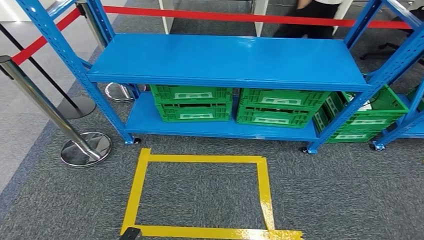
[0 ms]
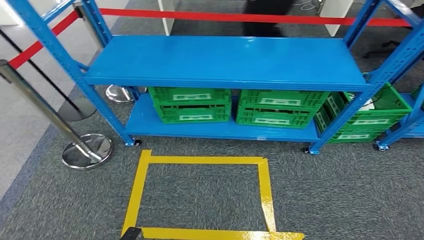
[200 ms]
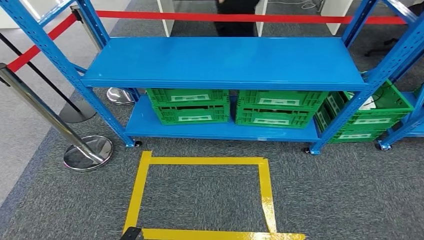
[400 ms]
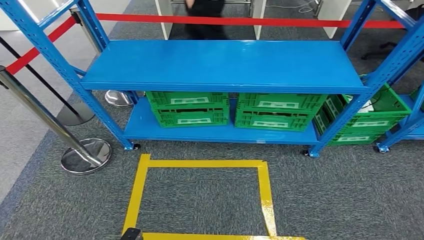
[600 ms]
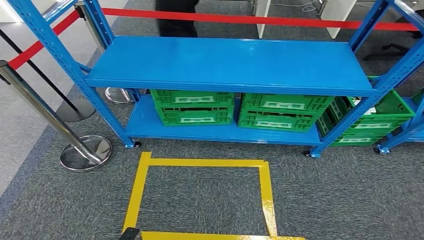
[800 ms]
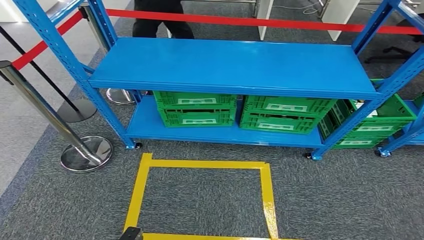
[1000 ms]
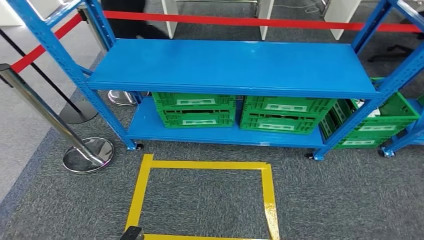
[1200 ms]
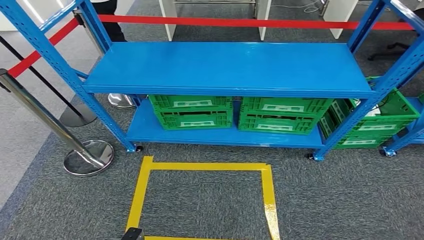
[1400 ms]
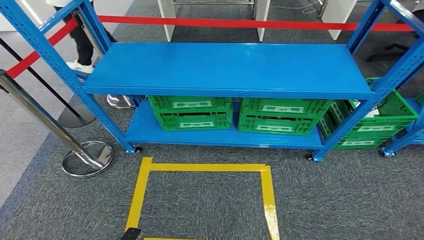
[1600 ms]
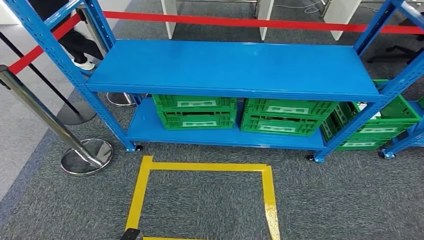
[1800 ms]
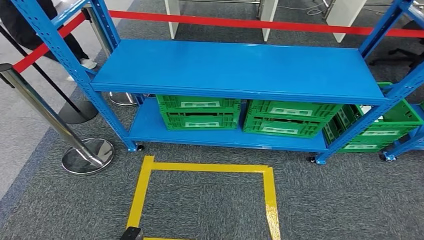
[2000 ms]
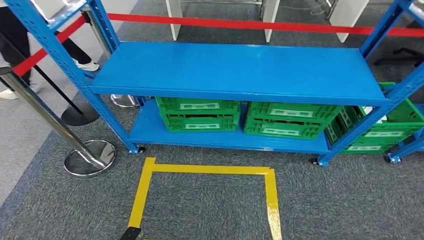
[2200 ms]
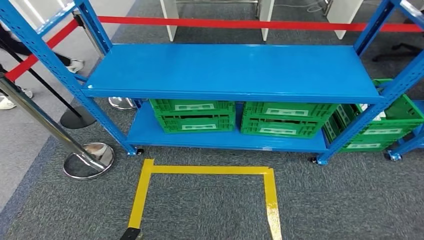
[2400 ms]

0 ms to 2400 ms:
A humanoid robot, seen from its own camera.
Step, 0 ms to 2400 ms: Return to the initial position at the workbench.
